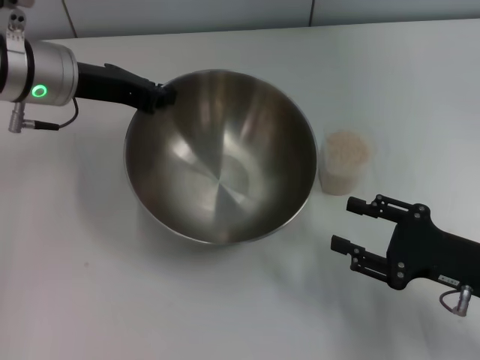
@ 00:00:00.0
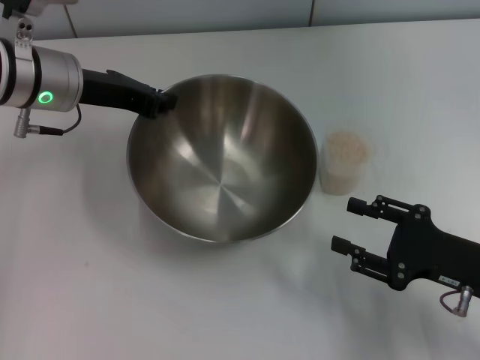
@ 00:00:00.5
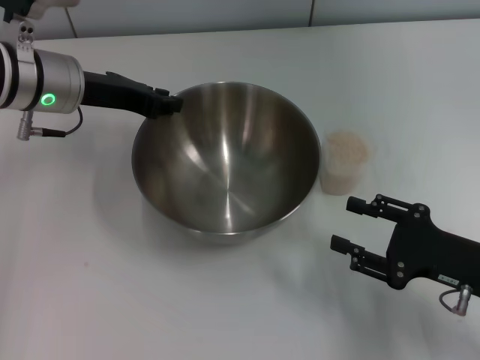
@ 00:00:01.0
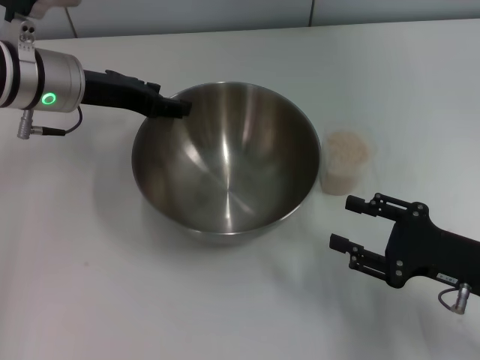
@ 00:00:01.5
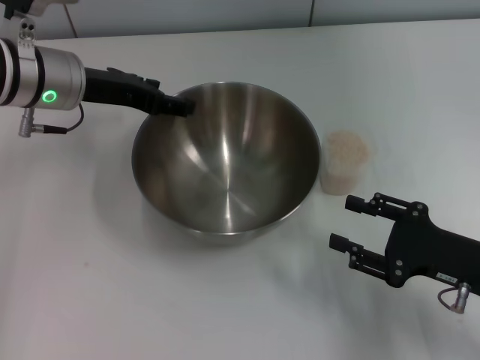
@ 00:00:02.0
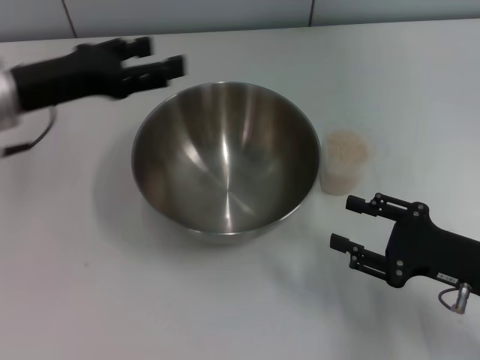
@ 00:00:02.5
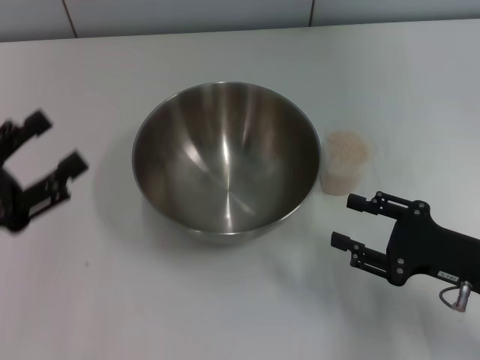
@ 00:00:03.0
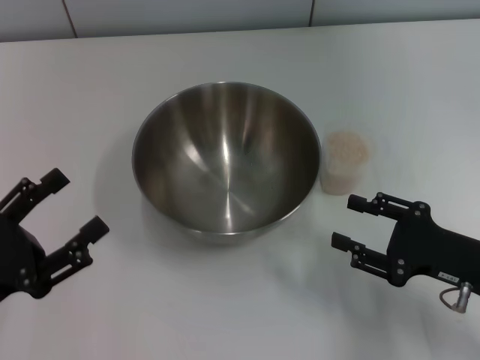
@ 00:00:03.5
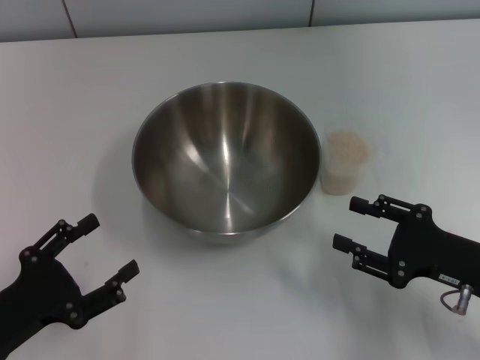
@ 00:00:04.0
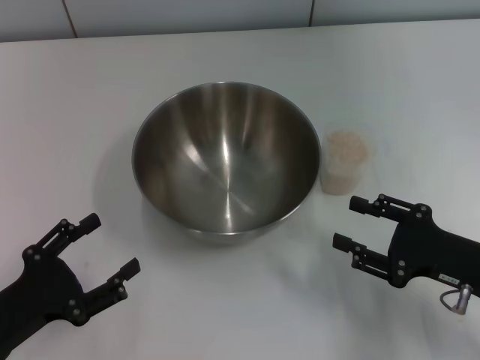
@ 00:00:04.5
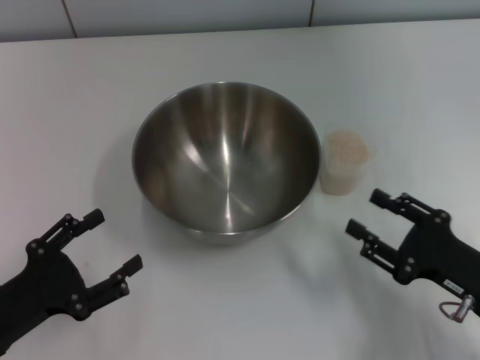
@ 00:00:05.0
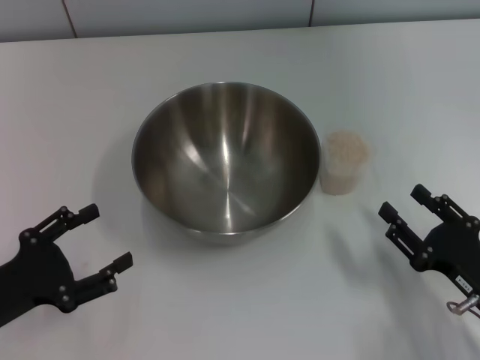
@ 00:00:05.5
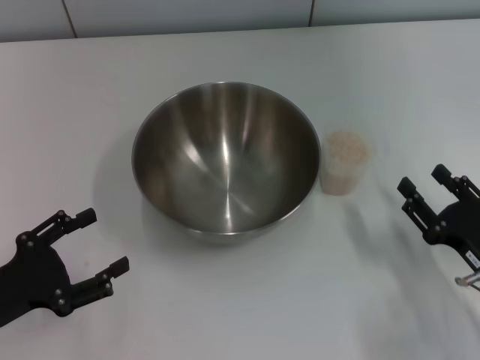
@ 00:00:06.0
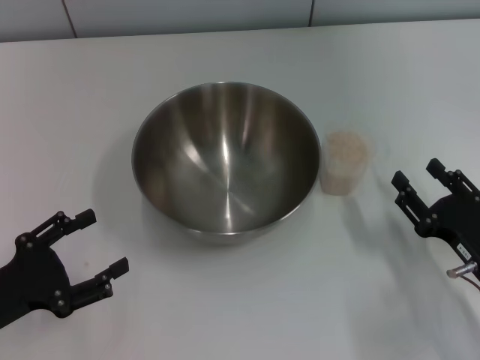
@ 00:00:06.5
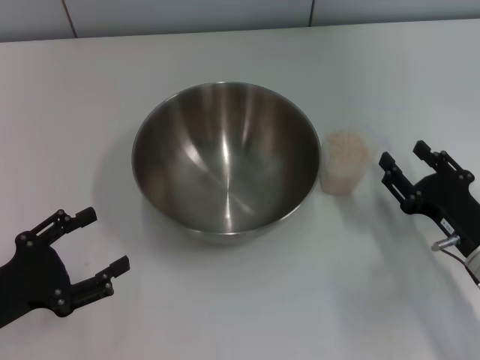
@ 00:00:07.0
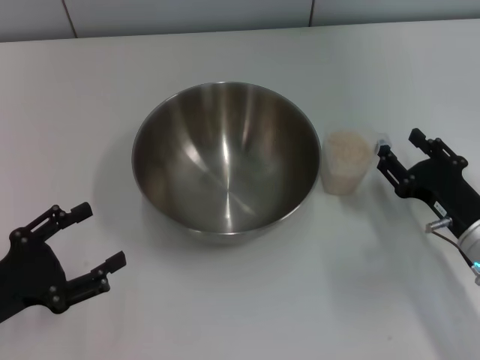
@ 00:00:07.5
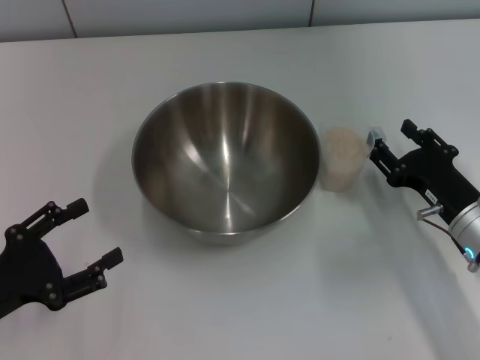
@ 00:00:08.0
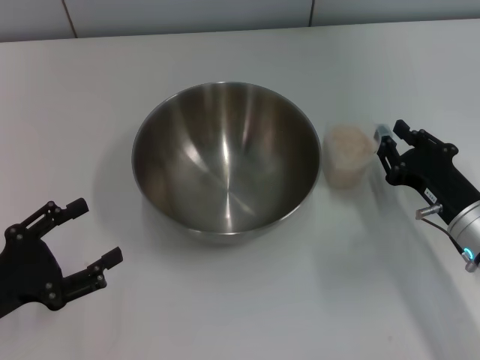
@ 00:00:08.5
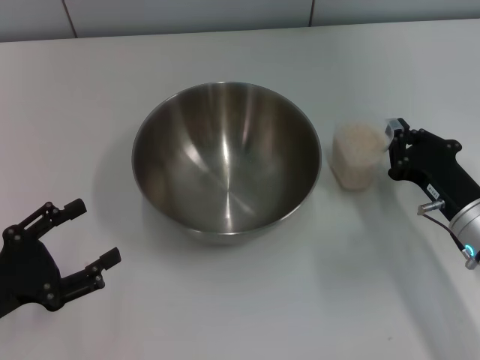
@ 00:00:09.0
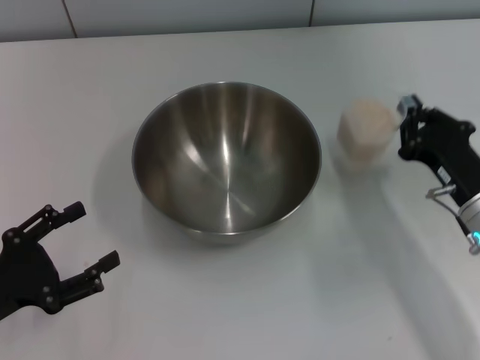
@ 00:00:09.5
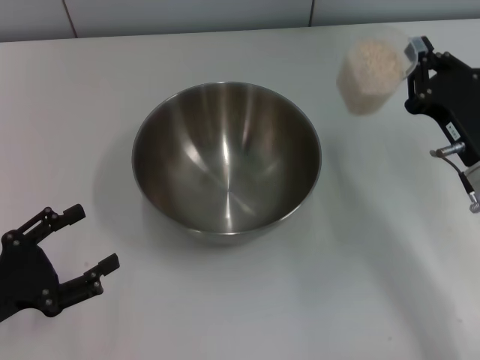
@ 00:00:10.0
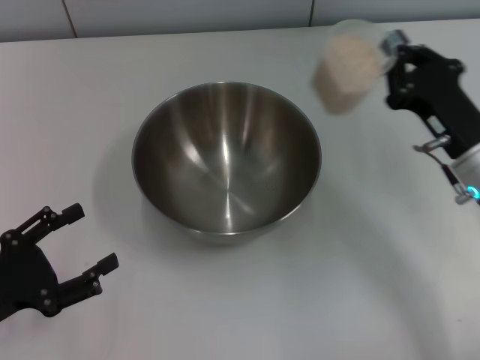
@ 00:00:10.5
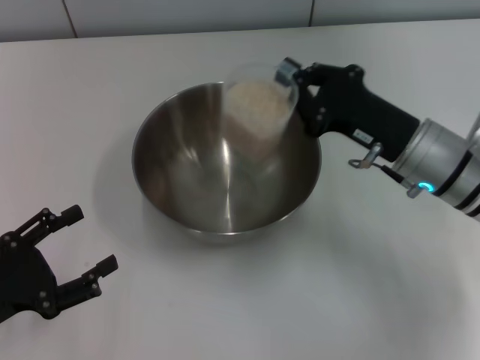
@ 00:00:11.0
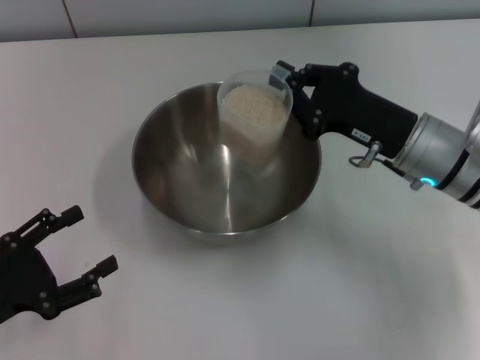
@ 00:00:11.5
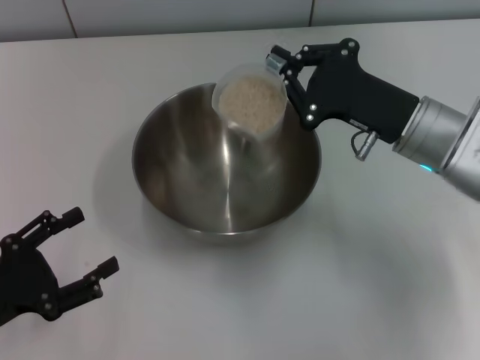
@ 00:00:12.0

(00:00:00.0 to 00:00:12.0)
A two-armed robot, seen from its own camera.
Task of the whole recording: Place the bowl in the middle of the table with one hand and pour the rice from the grain cup into it with the other hand.
Step, 00:00:00.0 - 00:00:02.0: Place the bowl in the center of view with the left gripper.
Step, 00:00:02.5 - 00:00:10.0: Pick up the cup with rice in it with the right gripper.
00:00:00.0 - 00:00:02.0: The left gripper opens up.
00:00:02.0 - 00:00:04.0: The left gripper moves backward and downward, approximately 25 cm.
00:00:06.0 - 00:00:08.0: The right gripper is displaced forward by about 10 cm.
00:00:08.0 - 00:00:10.0: The right gripper shifts roughly 5 cm upward, and closes its fingers.
00:00:10.0 - 00:00:12.0: The right gripper is displaced to the left by some 5 cm.

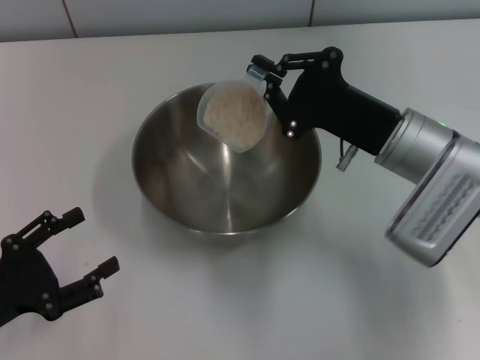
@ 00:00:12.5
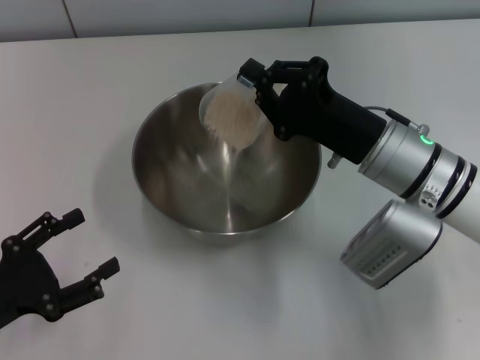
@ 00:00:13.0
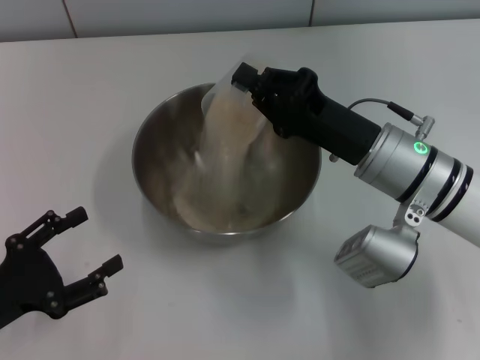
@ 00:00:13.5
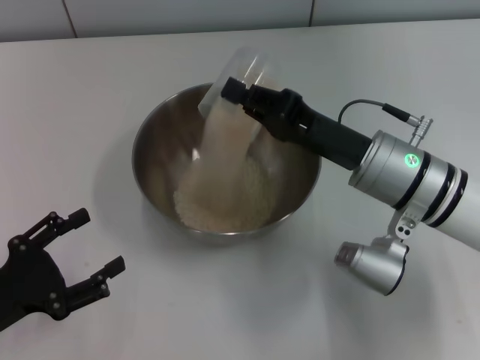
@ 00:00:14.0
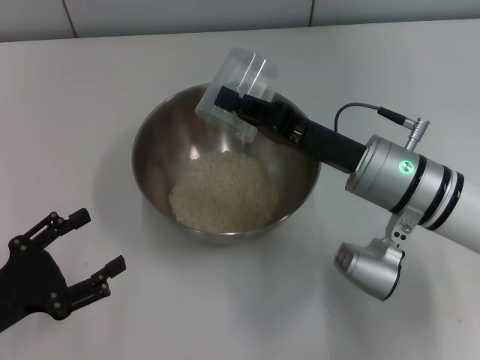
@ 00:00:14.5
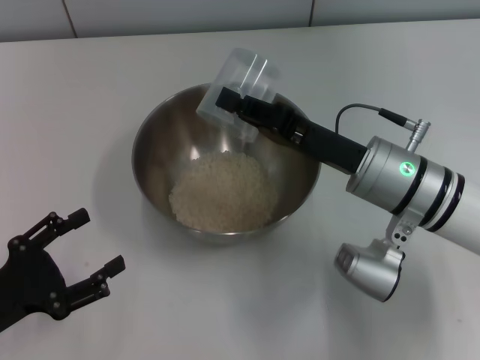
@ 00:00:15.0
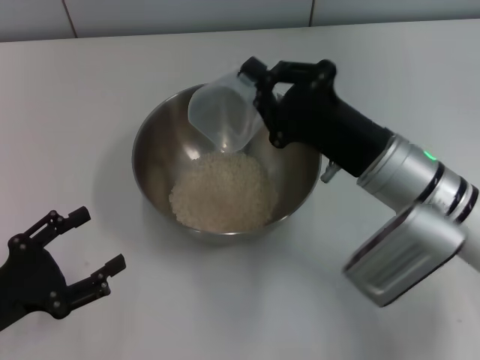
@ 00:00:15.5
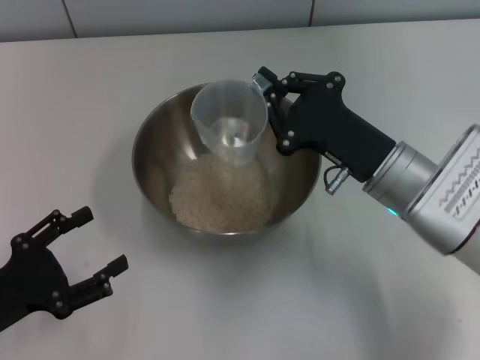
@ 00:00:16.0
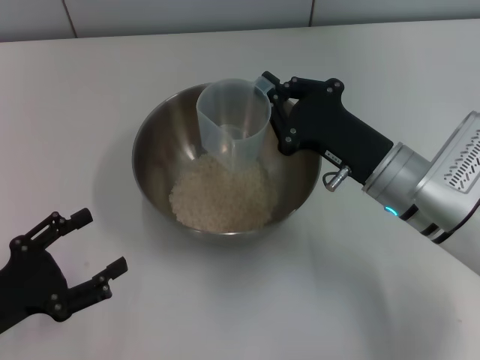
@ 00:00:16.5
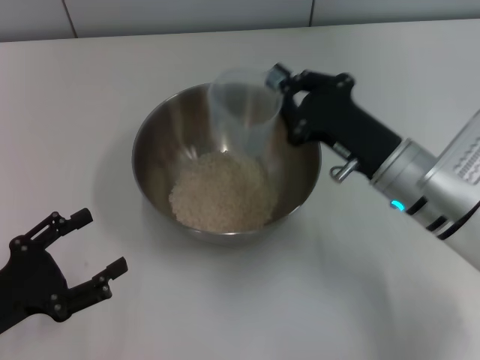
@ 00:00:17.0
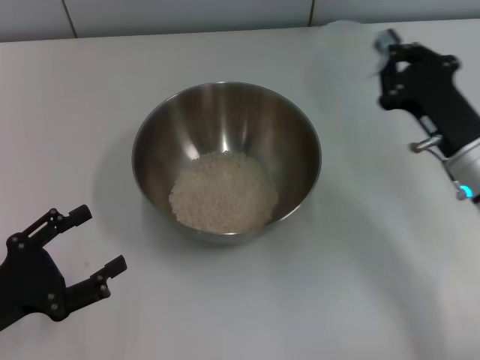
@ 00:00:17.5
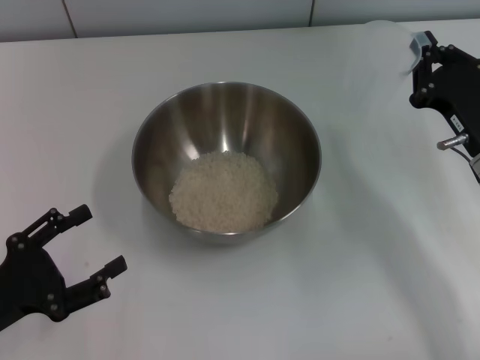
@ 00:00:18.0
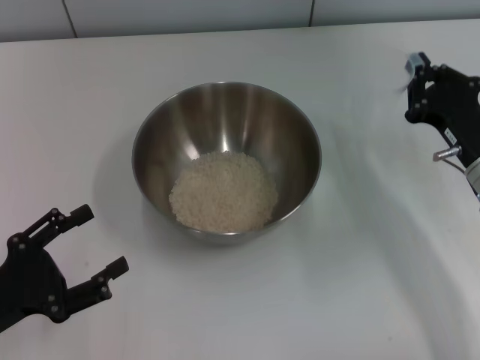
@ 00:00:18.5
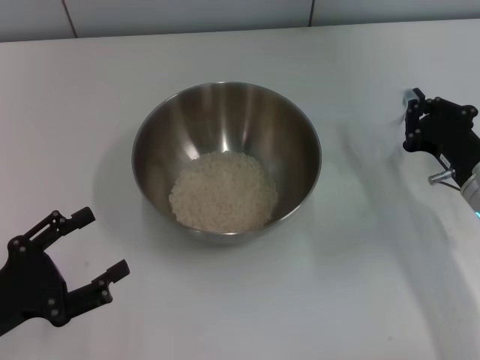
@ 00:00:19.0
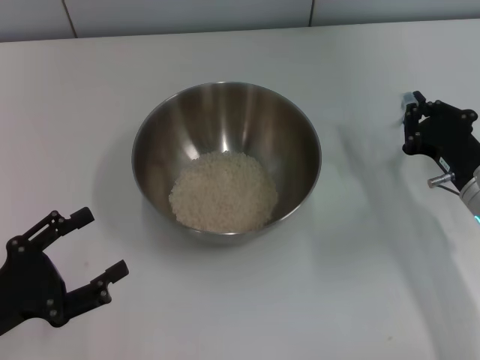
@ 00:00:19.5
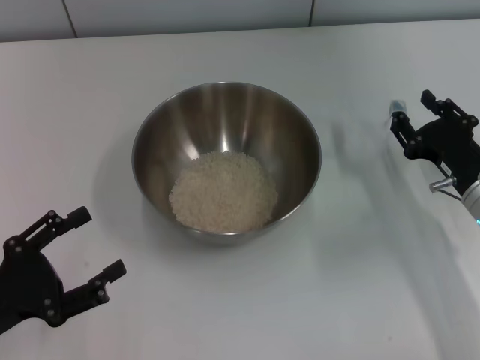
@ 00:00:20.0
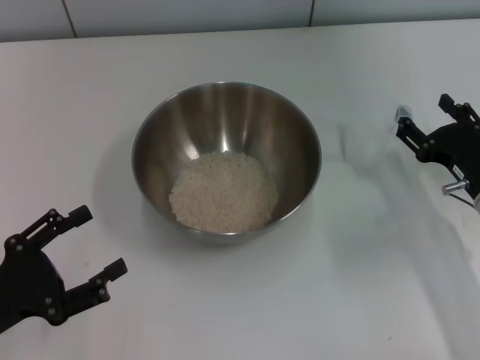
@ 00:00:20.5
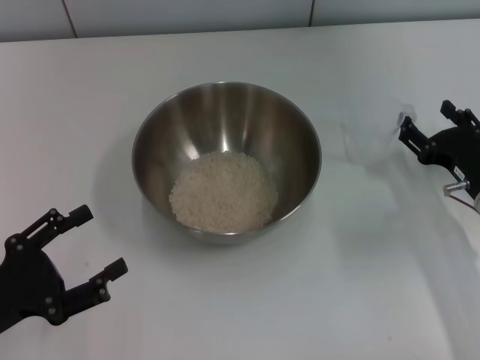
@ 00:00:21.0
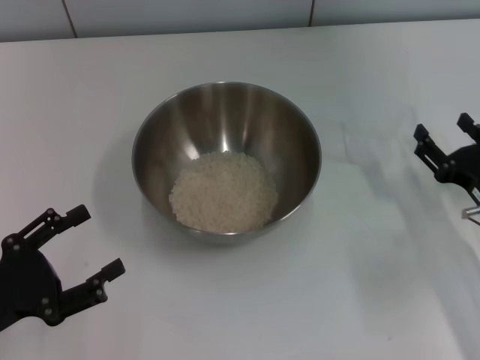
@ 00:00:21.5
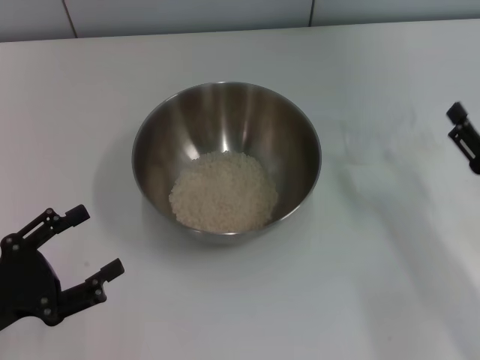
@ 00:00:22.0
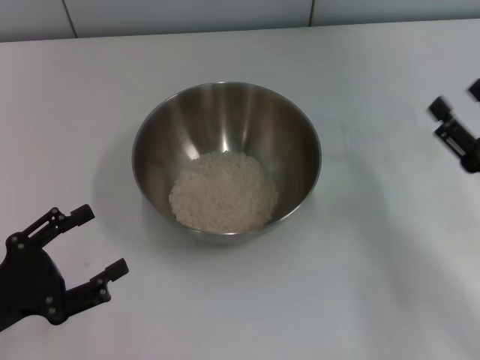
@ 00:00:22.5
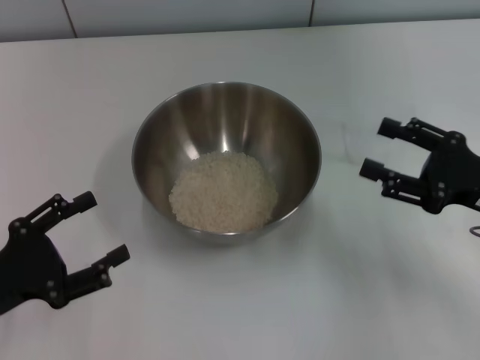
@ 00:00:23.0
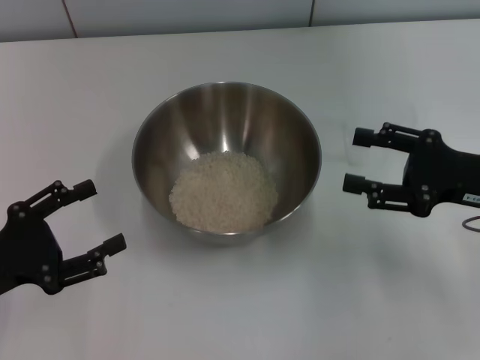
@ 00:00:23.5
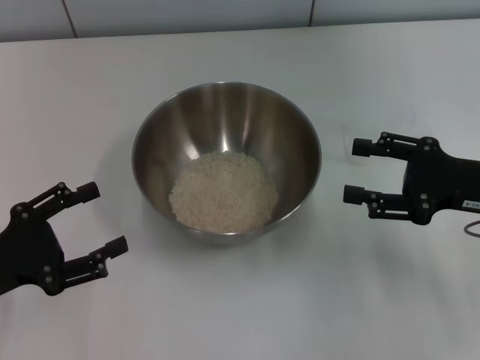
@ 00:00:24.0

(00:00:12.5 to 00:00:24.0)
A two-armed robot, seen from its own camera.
Task of the whole recording: Place the bowl in the middle of the table with one hand and pour the rice from the grain cup into it with the other hand.
Step, 00:00:12.5 - 00:00:17.0: Pour the rice from the cup into the bowl with the right gripper.
Step, 00:00:18.0 - 00:00:21.5: Place the cup on the table with the right gripper.
00:00:16.5 - 00:00:18.5: The right gripper shifts some 10 cm to the right.
00:00:18.5 - 00:00:20.0: The right gripper opens.
00:00:20.0 - 00:00:22.0: The right gripper moves backward, about 5 cm, and opens its fingers.
00:00:22.0 - 00:00:24.0: The right gripper moves upward and forward, roughly 10 cm.
